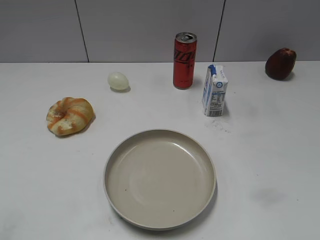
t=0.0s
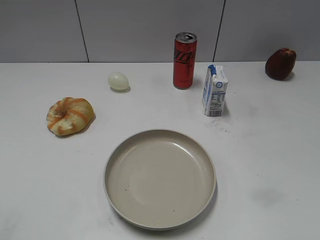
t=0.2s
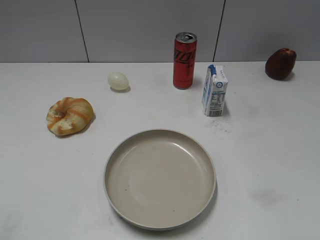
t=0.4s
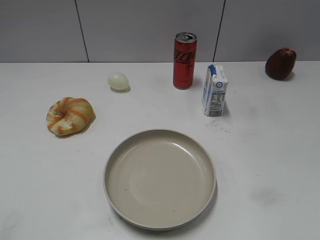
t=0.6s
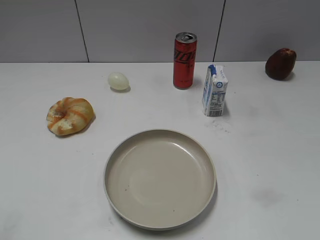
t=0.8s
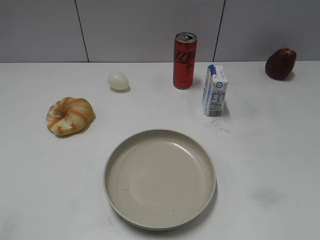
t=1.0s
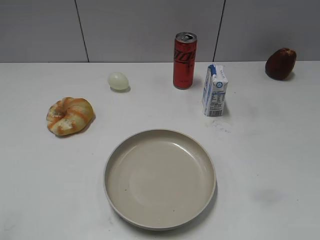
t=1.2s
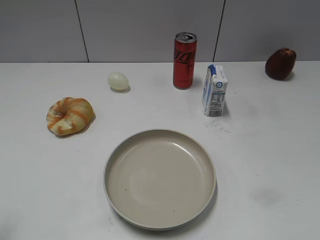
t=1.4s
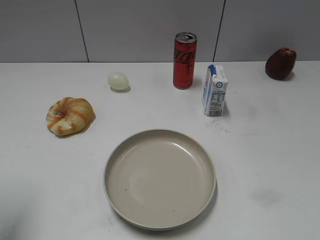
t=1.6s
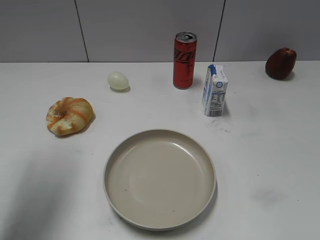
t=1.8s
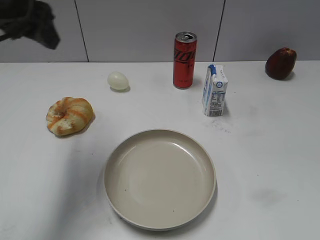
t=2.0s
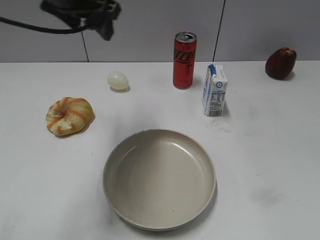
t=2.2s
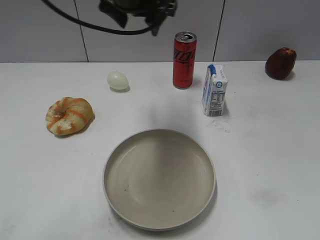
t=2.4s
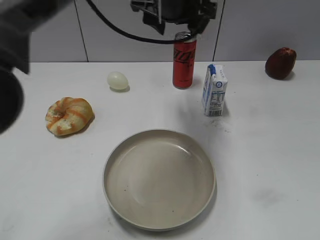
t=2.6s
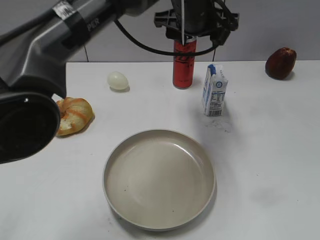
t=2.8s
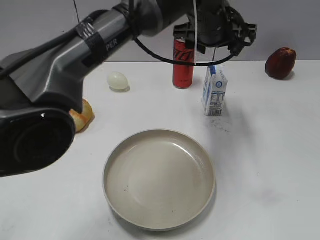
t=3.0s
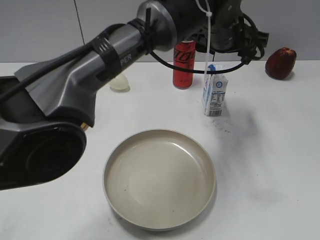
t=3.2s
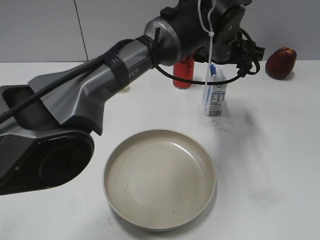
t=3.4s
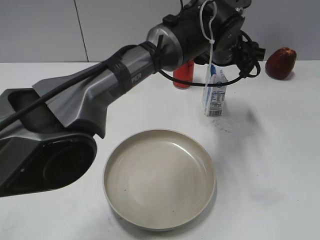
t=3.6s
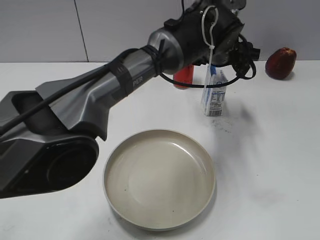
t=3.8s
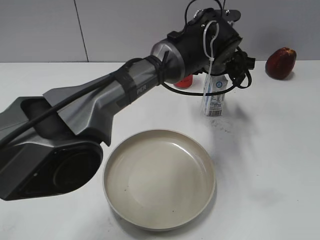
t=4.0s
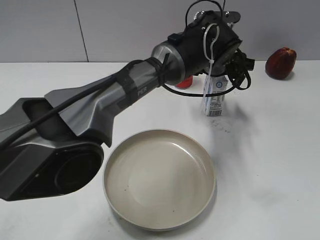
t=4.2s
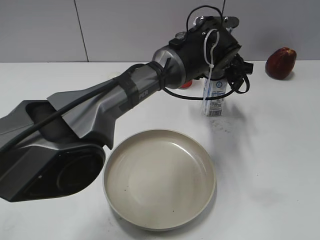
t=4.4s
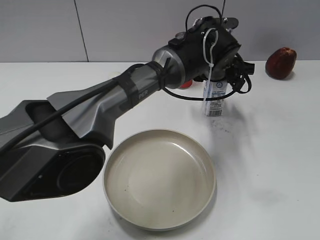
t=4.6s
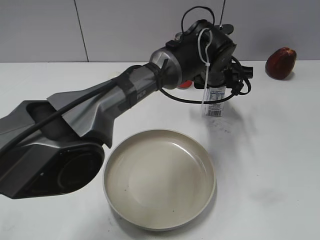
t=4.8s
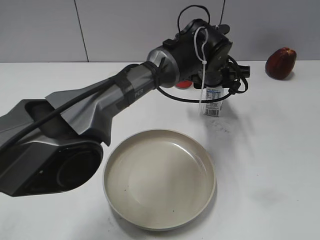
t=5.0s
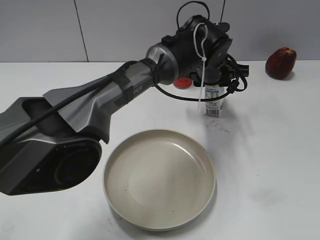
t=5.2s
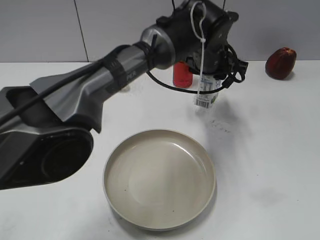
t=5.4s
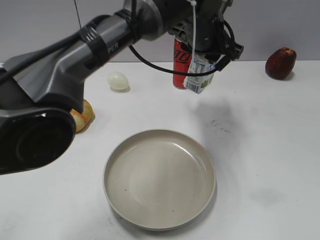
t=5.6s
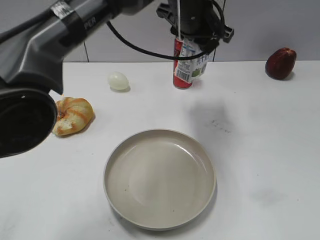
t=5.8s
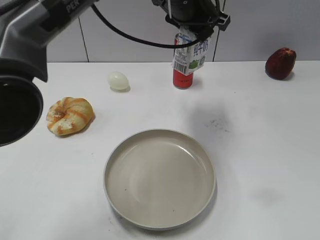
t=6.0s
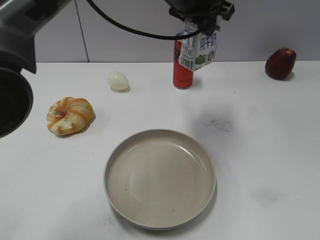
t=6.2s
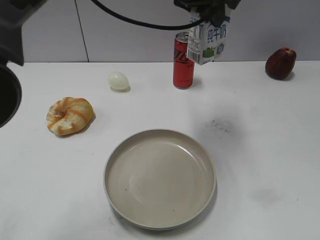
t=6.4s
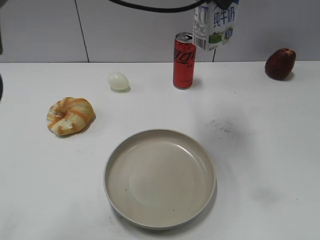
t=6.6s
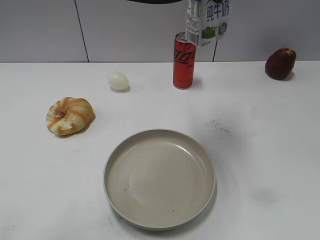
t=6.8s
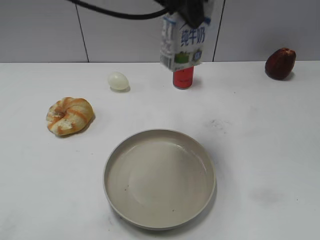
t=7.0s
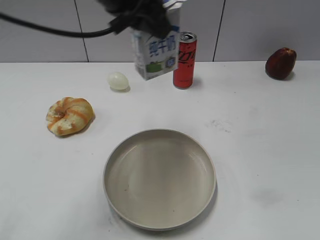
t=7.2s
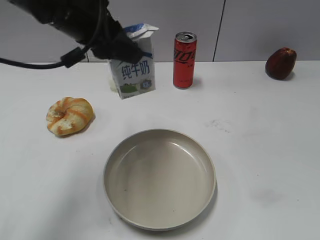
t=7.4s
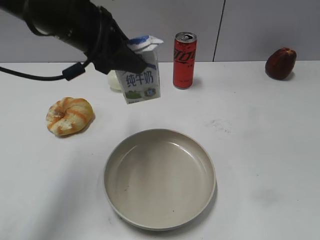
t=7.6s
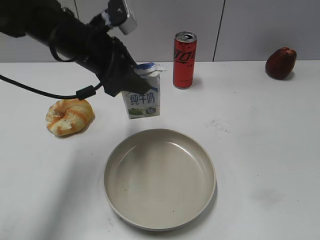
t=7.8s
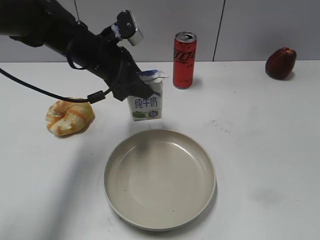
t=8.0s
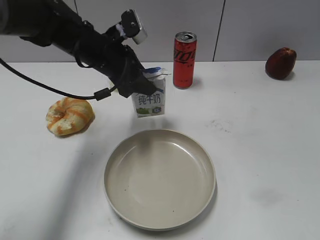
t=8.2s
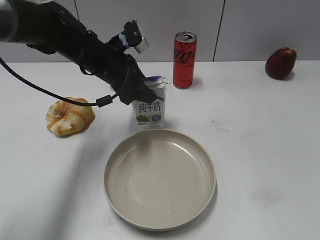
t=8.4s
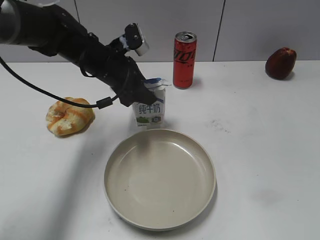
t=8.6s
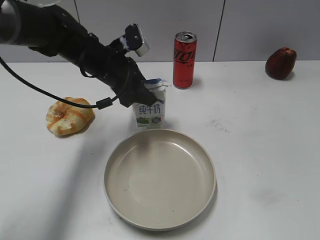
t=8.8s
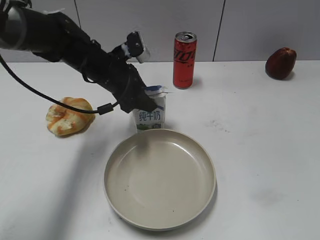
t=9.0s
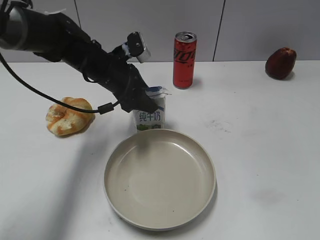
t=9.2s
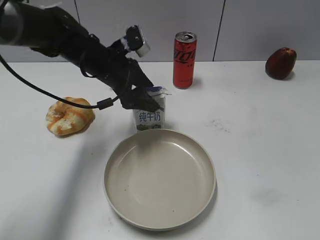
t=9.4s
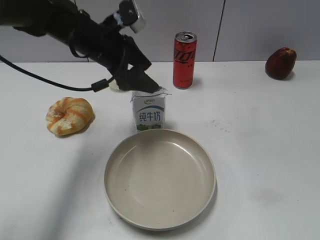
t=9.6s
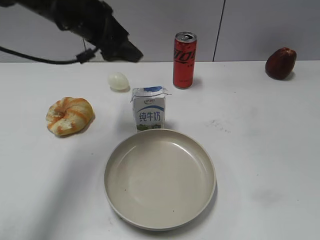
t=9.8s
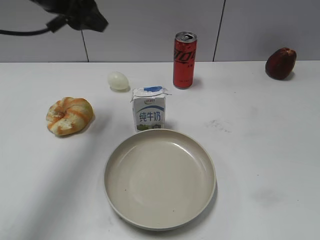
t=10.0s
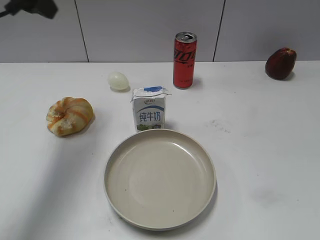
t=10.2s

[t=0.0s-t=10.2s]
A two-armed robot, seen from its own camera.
Step, t=0.8s to t=4.6s: Grasp the milk with left gripper.
Step, t=5.0s to t=9.6s: Place the milk on the table with left gripper.
t=1.4s to t=3.0s: The left gripper goes some 50 cm to the right and forward.
t=3.0s to t=4.4s: The left gripper heads downward, covering approximately 10 cm.
t=4.4s to t=5.8s: The left gripper heads upward and to the left, covering some 10 cm, and closes up.
t=5.8s to t=7.2s: The left gripper heads to the left, upward and backward, covering some 15 cm.
t=7.2s to t=8.8s: The left gripper shifts some 20 cm downward and forward.
t=8.8s to t=10.2s: The left gripper travels upward and to the left by some 20 cm, and opens up.

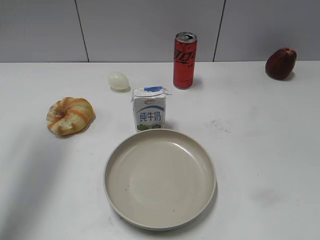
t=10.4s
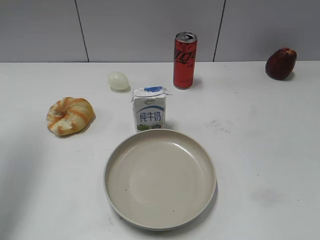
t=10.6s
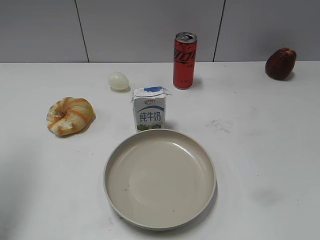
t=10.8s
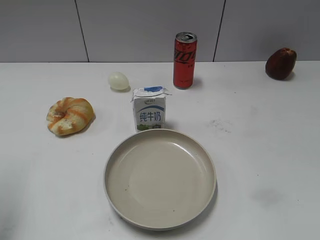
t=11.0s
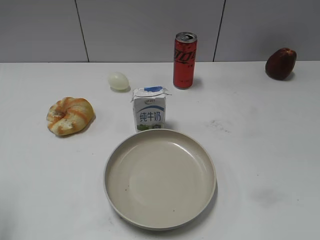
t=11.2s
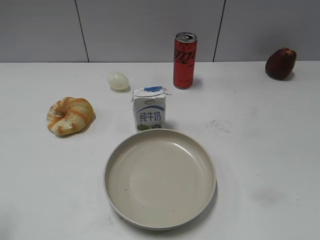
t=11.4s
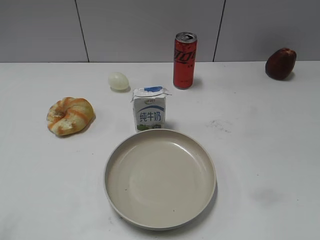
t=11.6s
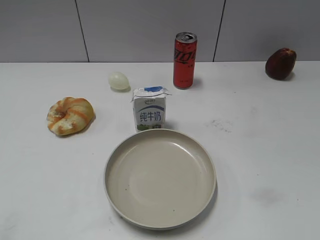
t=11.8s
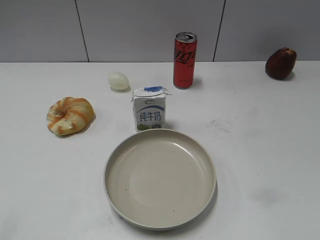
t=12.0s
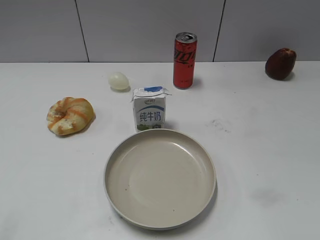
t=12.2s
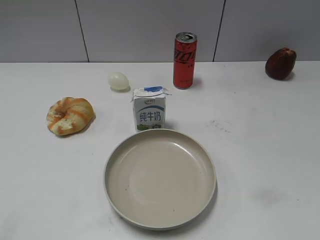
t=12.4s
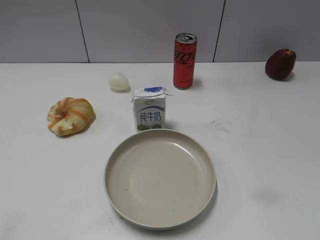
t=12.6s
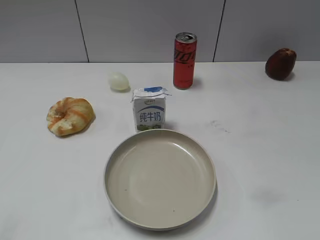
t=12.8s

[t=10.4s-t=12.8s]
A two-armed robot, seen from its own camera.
t=10.4s to t=11.6s: The left gripper heads backward, covering some 25 cm.
